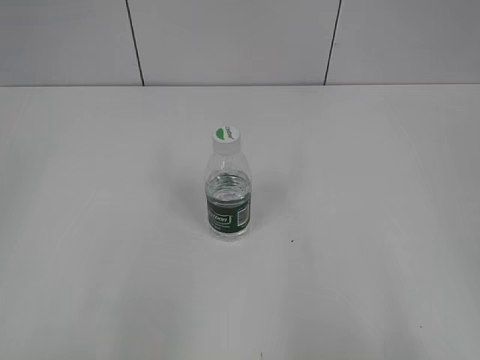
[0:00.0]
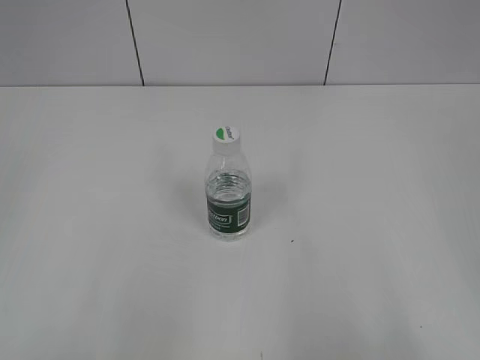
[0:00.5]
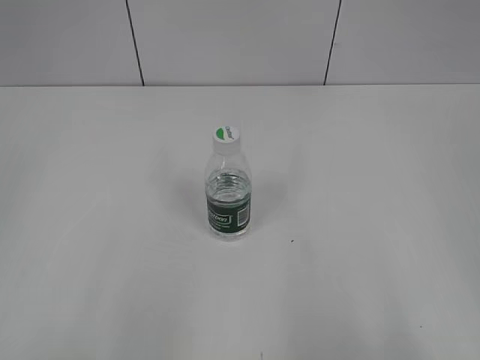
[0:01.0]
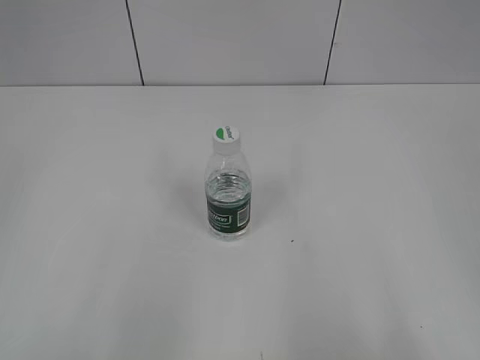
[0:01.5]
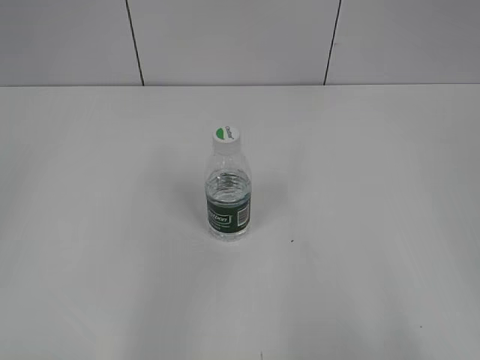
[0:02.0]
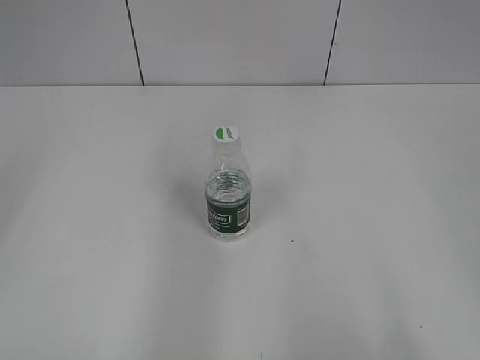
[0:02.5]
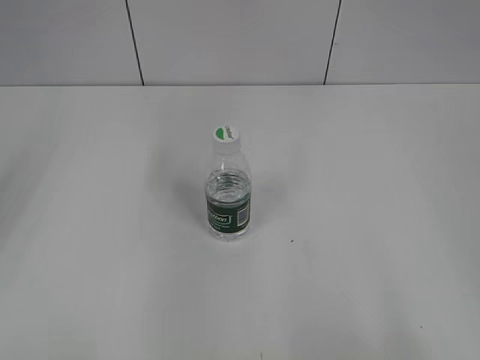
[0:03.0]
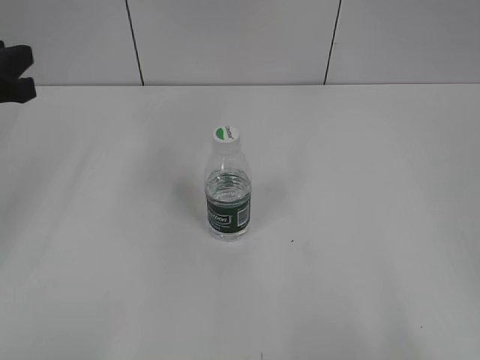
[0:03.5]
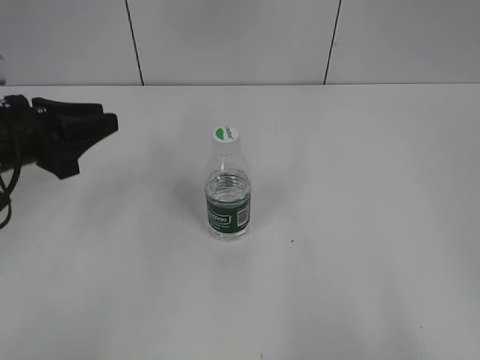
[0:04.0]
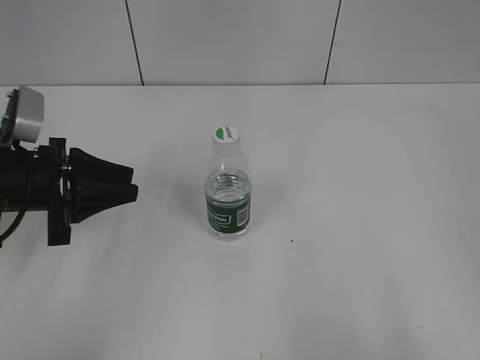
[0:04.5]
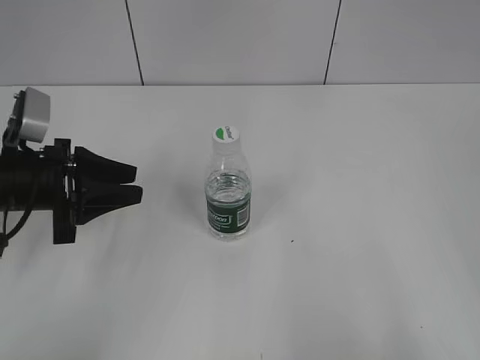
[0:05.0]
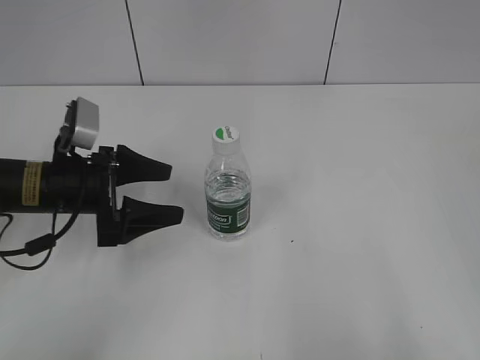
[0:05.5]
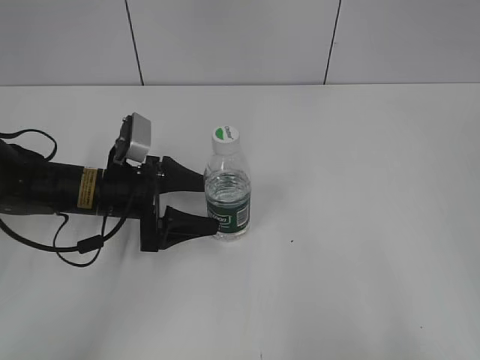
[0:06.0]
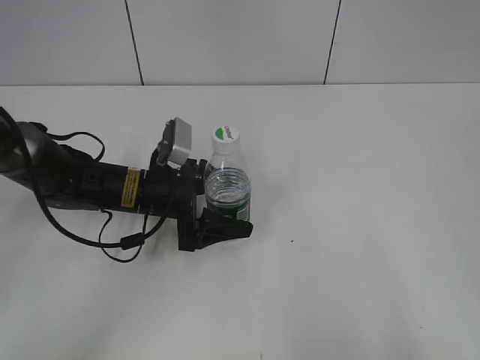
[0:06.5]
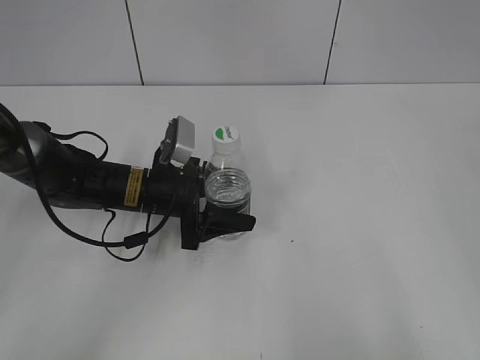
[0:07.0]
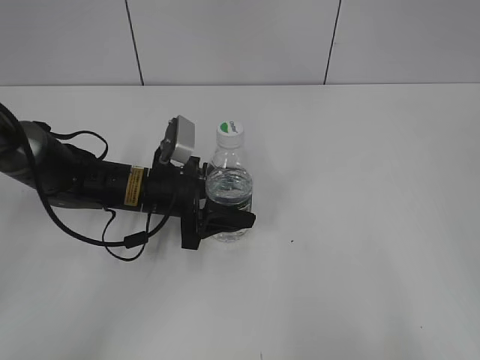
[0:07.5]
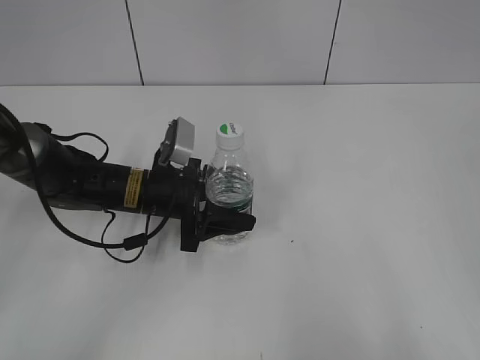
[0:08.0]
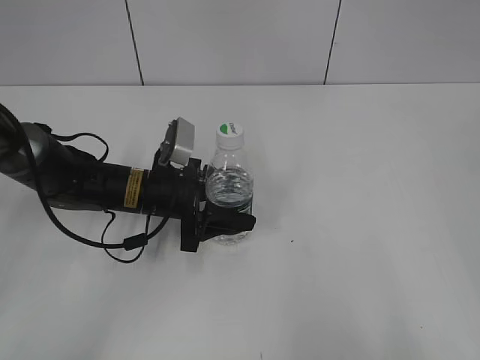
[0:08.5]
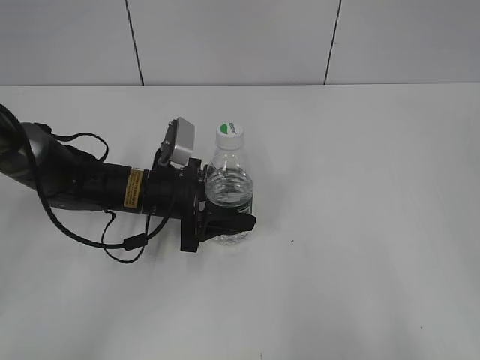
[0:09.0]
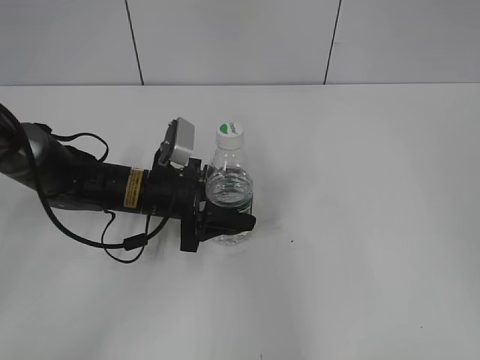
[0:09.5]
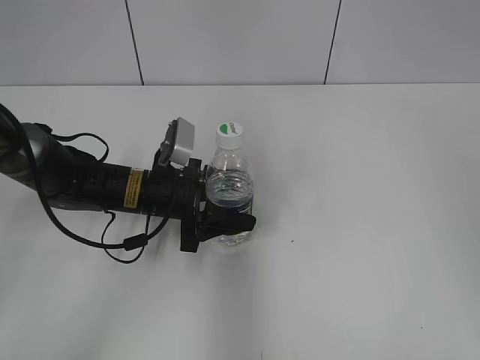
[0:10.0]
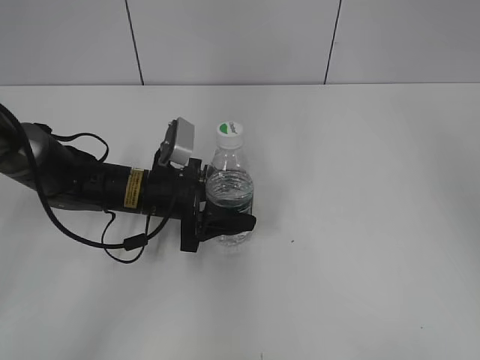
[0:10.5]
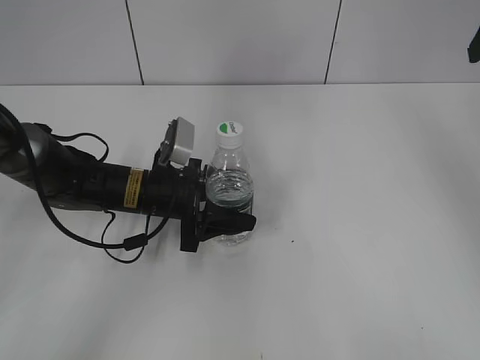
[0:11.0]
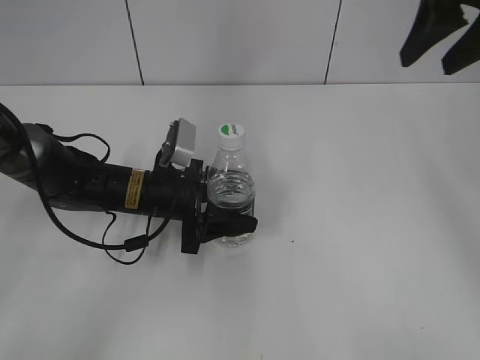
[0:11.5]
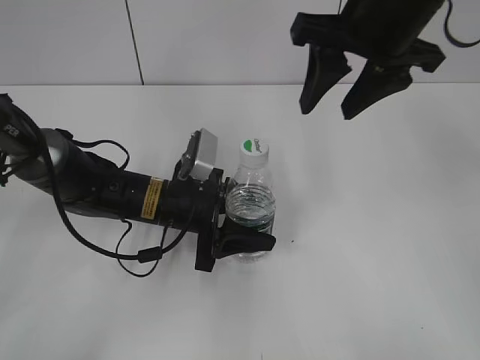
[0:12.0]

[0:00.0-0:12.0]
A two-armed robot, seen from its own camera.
Step, 0:00.0 to 0:07.0: Grasp the bottle and move it to the center of the table with the left gripper.
0:02.0 to 0:04.0: The left gripper travels forward and downward by about 30 cm.
0:04.0 to 0:06.0: The left gripper travels downward and to the right by about 15 cm, and opens up.
0:06.0 to 0:08.0: The left gripper moves approximately 5 cm, and closes its fingers.
0:08.0 to 0:10.0: The right gripper travels forward and upward by some 15 cm.
0:10.0 to 0:12.0: The right gripper shifts roughly 25 cm forward and to the left.

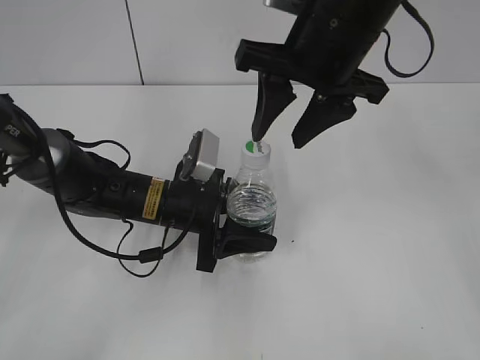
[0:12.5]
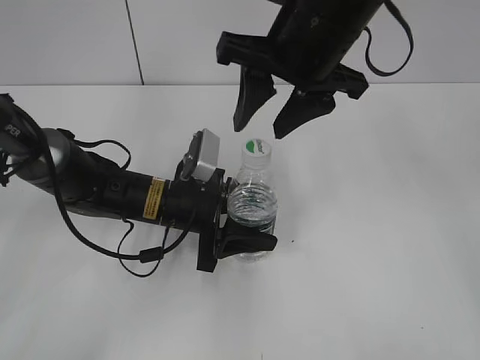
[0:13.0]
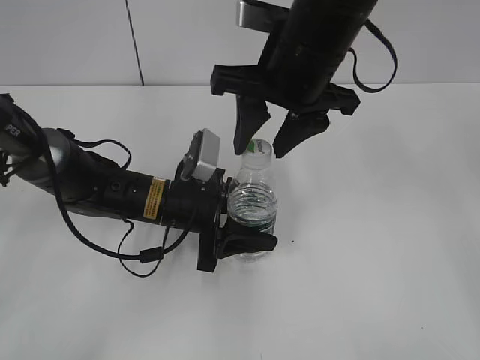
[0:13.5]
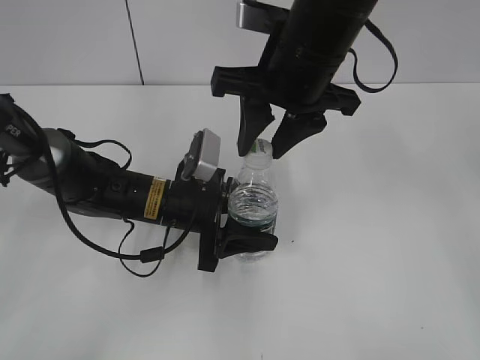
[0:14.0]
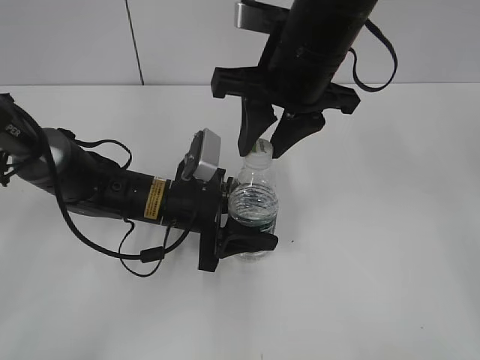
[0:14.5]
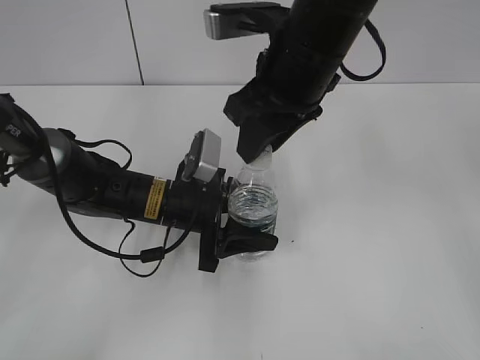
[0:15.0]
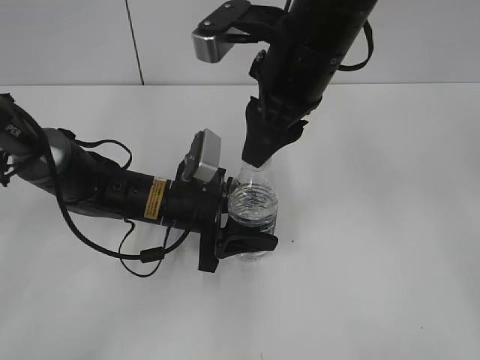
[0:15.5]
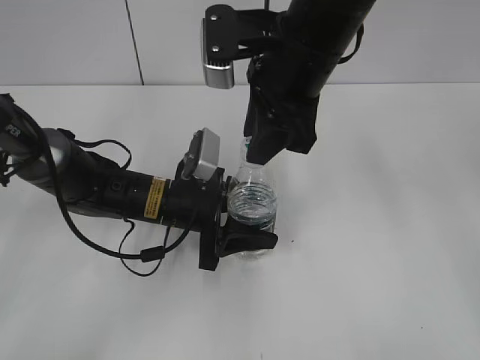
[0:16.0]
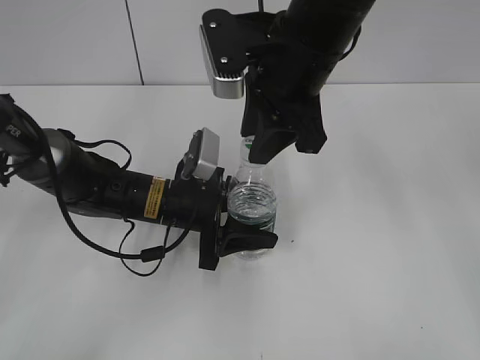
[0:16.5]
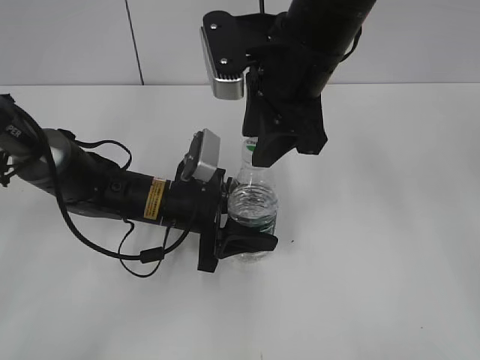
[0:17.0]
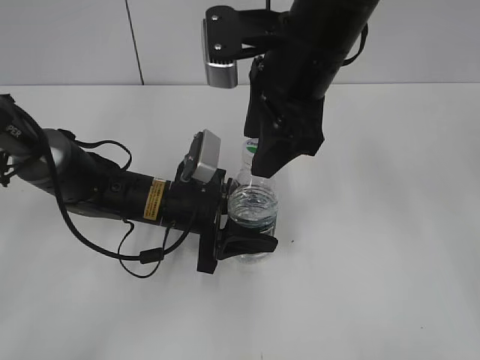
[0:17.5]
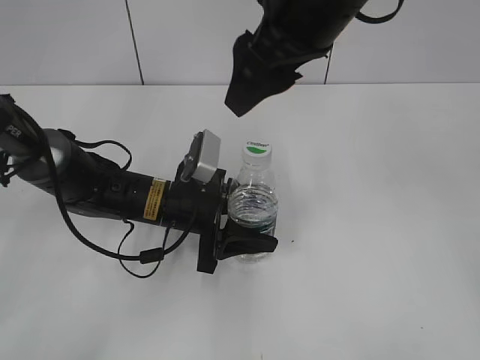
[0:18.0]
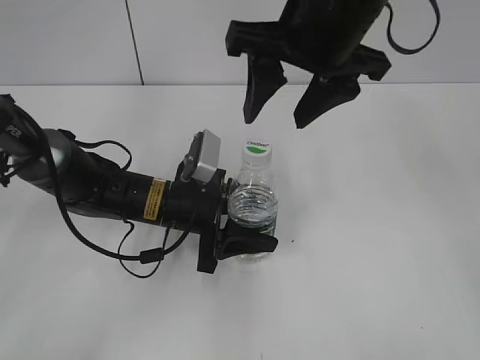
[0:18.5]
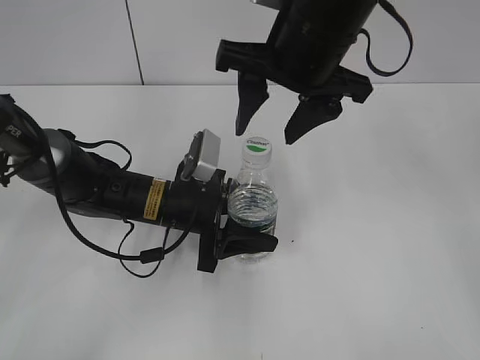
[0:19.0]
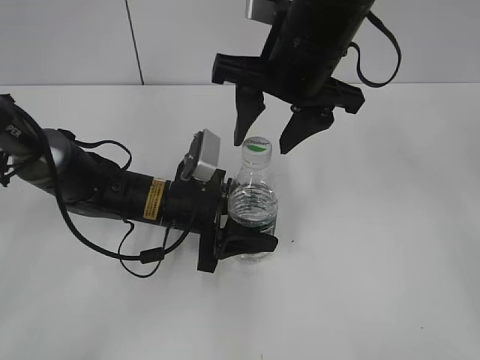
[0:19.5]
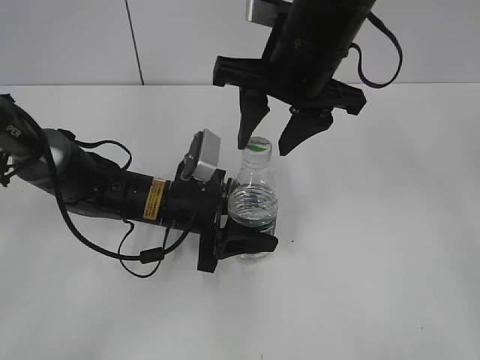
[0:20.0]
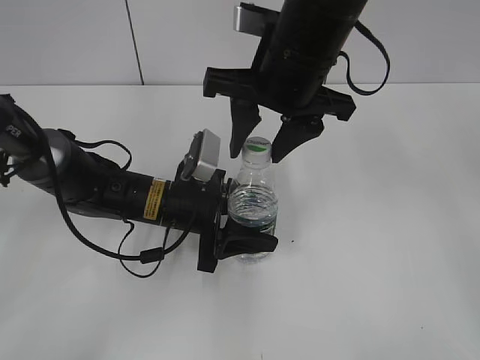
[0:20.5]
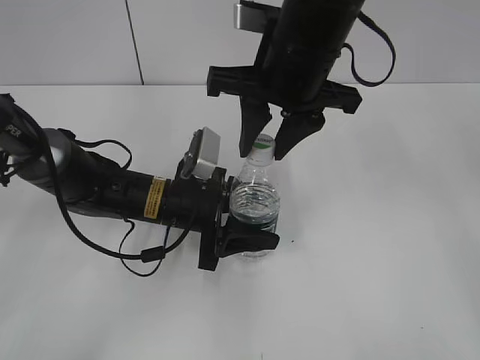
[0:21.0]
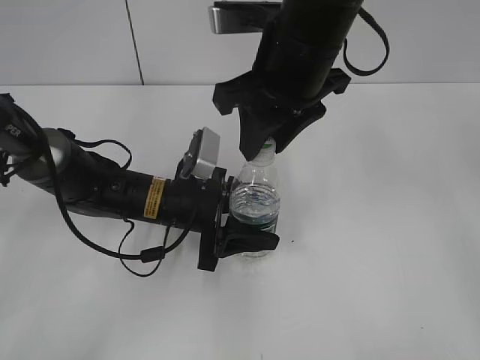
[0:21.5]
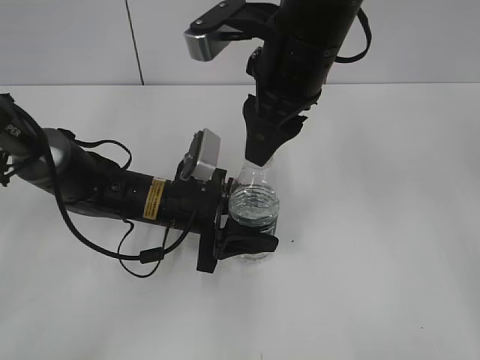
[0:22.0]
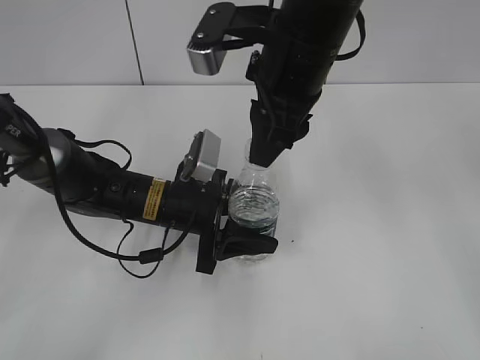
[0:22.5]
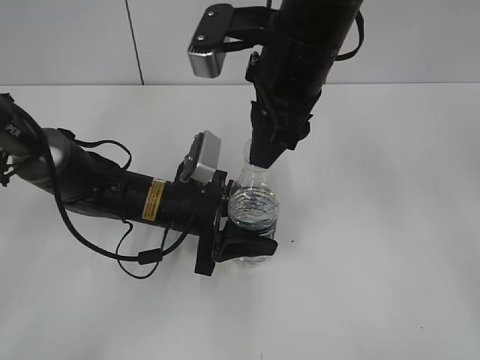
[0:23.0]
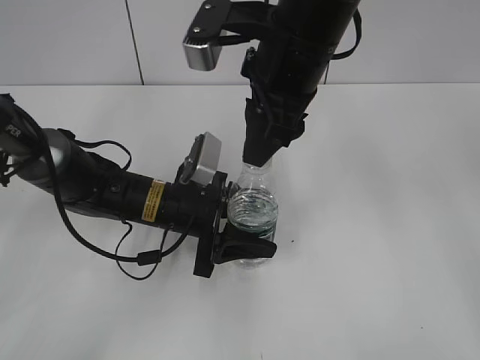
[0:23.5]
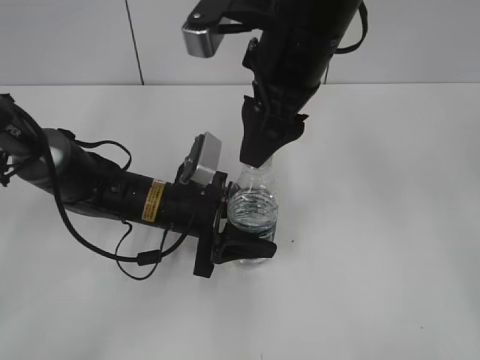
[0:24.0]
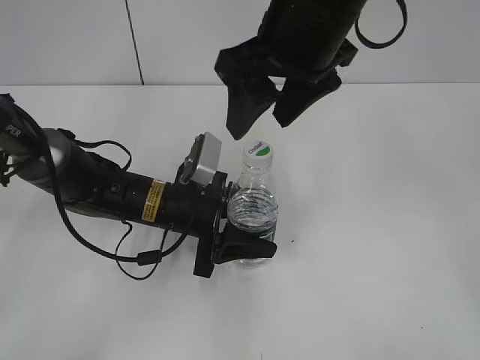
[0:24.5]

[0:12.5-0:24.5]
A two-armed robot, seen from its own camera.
0:12.5 to 0:14.5: The right gripper closes.
0:16.5 to 0:18.5: The right gripper opens.
0:18.5 to 0:20.5: The right gripper moves roughly 5 cm.
0:20.5 to 0:22.5: The right gripper closes.
0:22.5 to 0:24.5: The right gripper opens up.

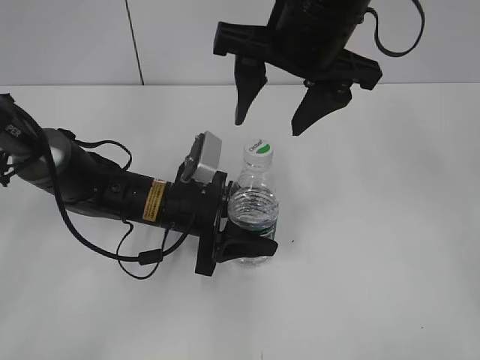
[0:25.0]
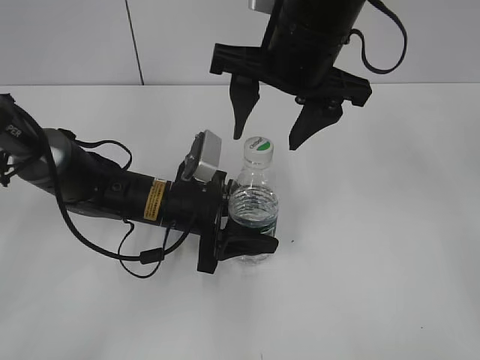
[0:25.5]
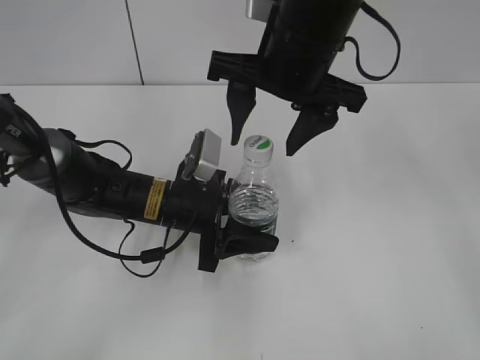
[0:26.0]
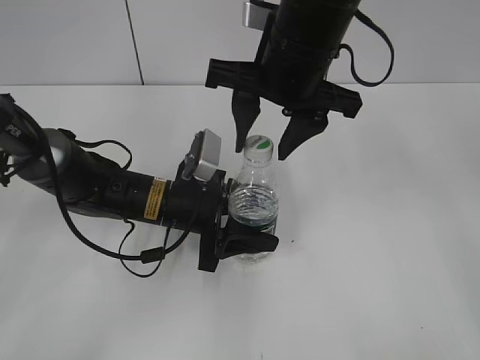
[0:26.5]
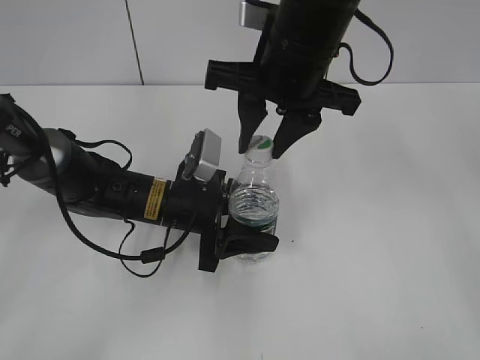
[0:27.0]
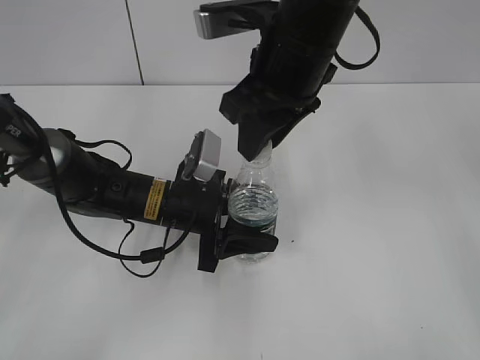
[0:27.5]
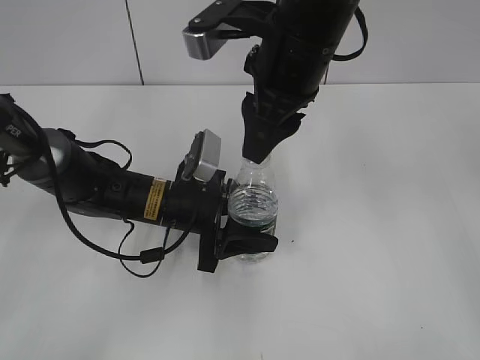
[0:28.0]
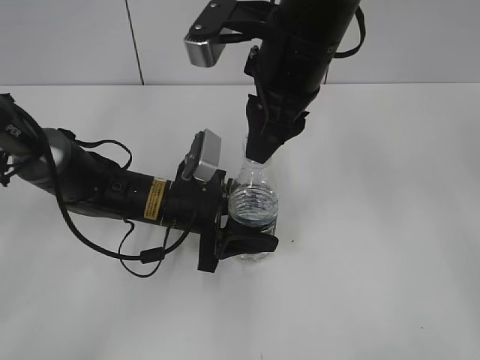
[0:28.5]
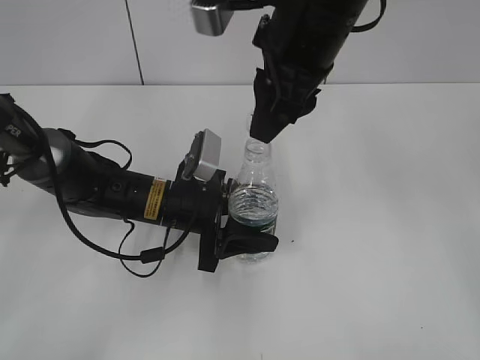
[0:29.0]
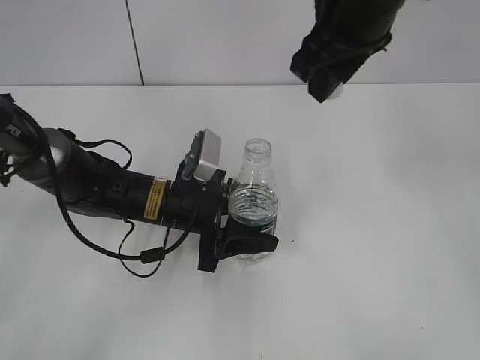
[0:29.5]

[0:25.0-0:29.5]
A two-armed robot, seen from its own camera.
Step, 0:25.0 to 0:29.0: Unscrew the bottle cap with the right gripper while holding the bottle with the left gripper.
0:25.0 to 0:27.0: The right gripper closes up.
0:27.0 to 0:29.5: The right gripper moves about 5 cm.
